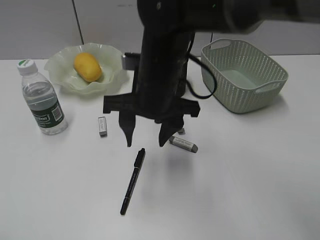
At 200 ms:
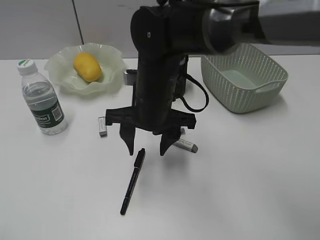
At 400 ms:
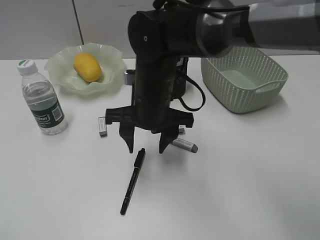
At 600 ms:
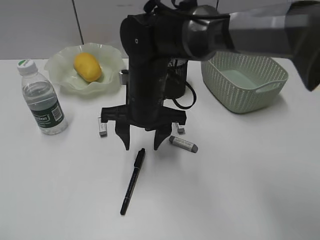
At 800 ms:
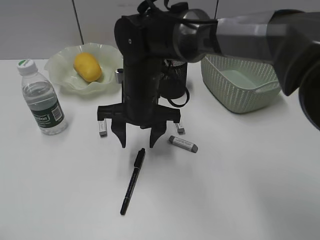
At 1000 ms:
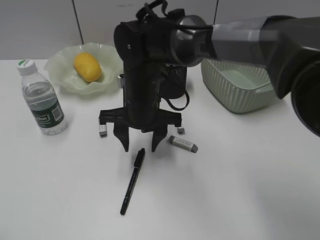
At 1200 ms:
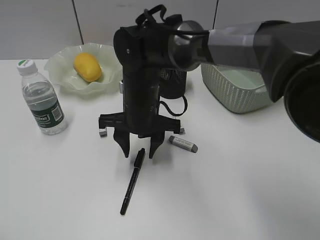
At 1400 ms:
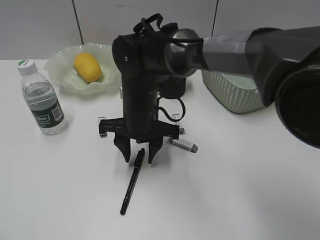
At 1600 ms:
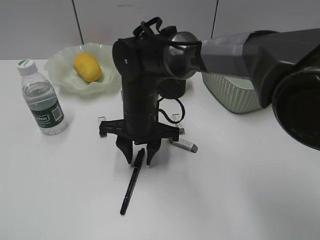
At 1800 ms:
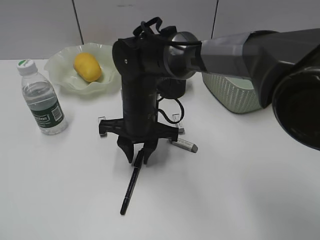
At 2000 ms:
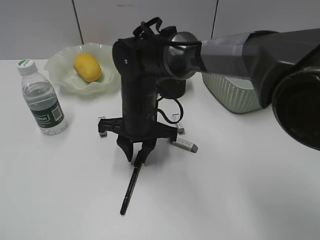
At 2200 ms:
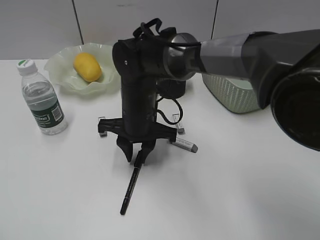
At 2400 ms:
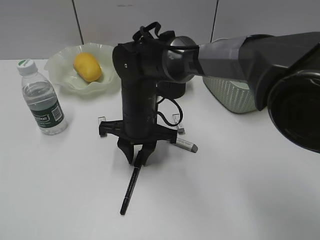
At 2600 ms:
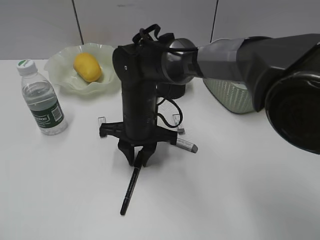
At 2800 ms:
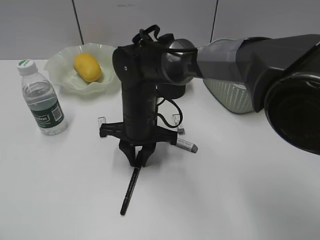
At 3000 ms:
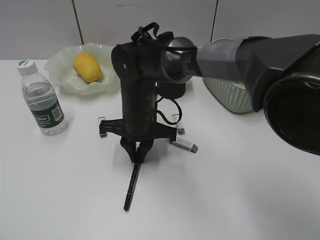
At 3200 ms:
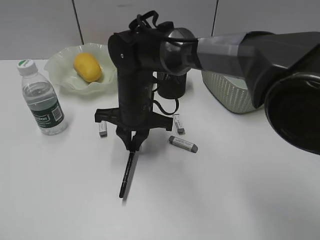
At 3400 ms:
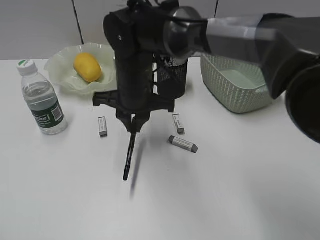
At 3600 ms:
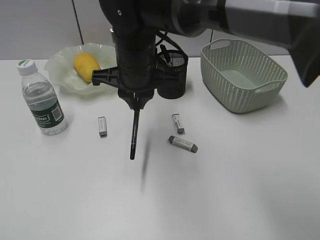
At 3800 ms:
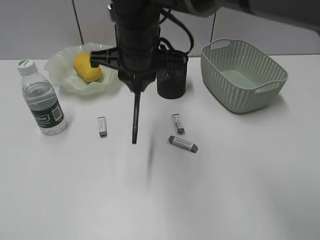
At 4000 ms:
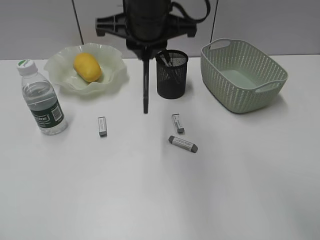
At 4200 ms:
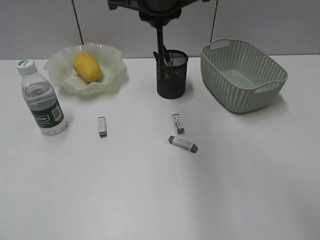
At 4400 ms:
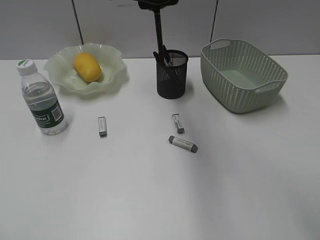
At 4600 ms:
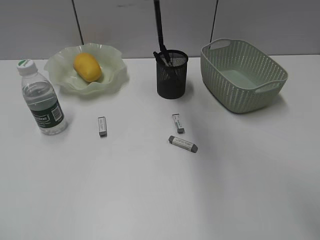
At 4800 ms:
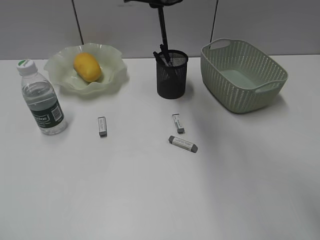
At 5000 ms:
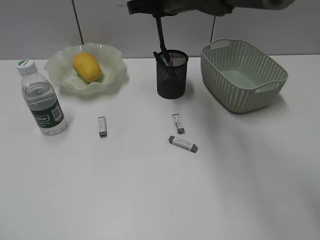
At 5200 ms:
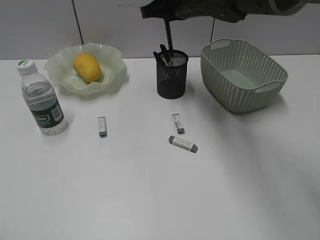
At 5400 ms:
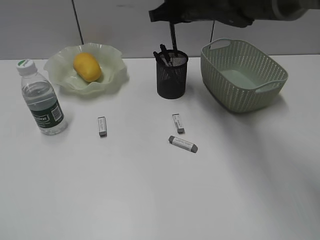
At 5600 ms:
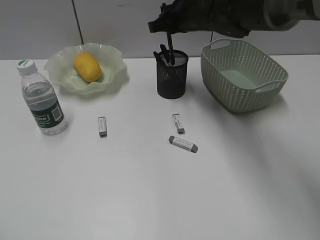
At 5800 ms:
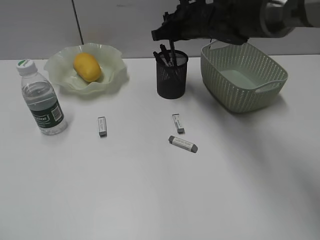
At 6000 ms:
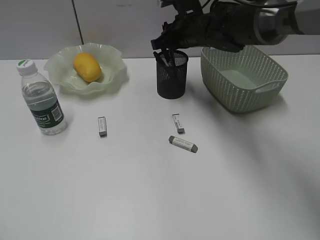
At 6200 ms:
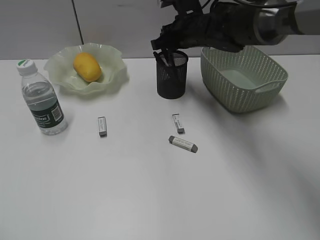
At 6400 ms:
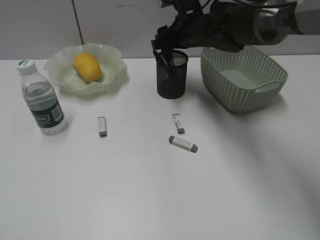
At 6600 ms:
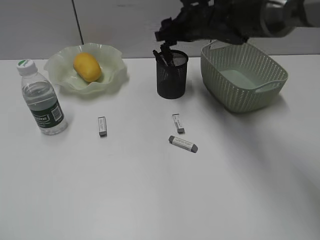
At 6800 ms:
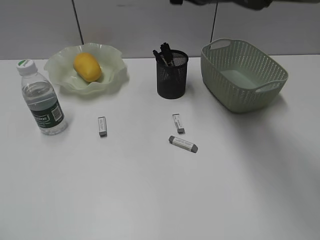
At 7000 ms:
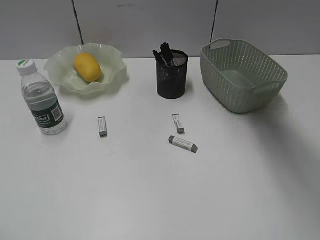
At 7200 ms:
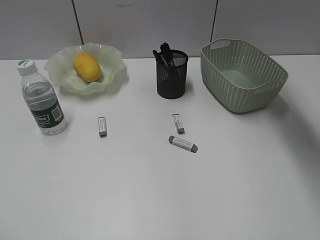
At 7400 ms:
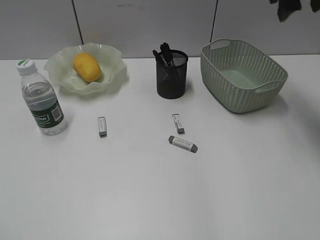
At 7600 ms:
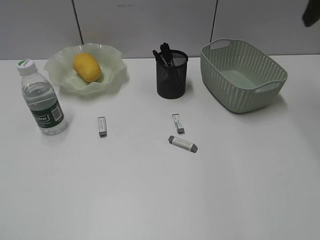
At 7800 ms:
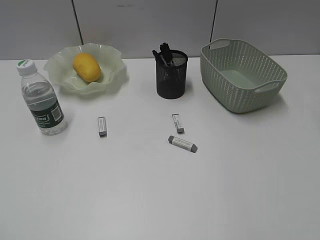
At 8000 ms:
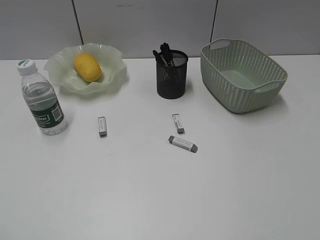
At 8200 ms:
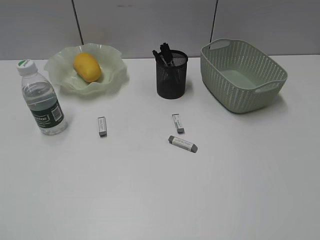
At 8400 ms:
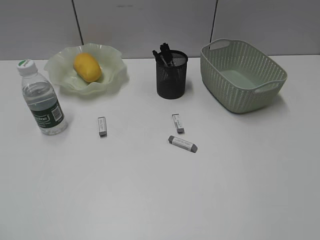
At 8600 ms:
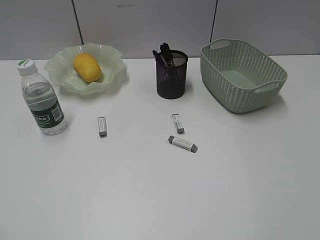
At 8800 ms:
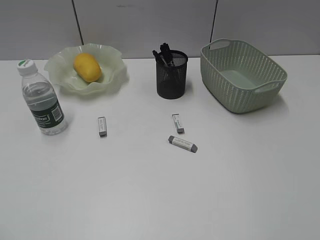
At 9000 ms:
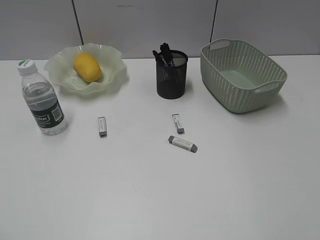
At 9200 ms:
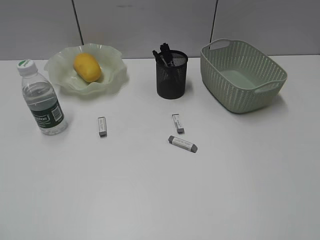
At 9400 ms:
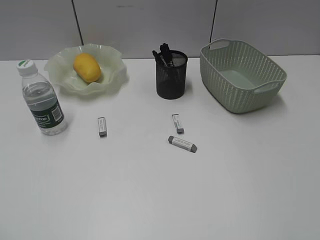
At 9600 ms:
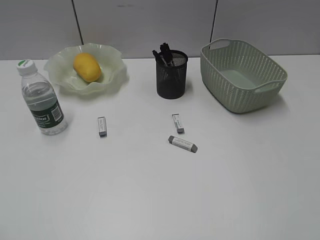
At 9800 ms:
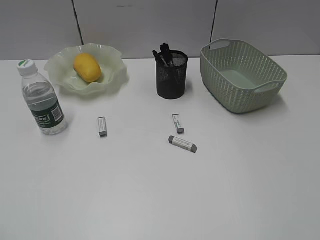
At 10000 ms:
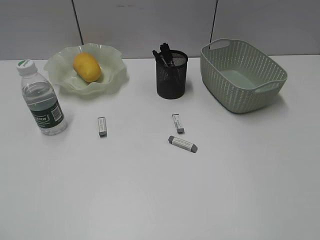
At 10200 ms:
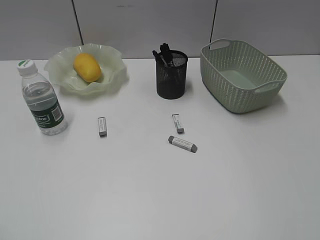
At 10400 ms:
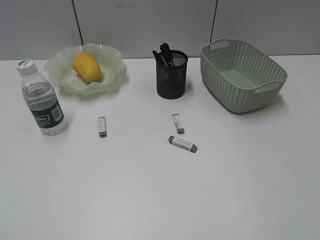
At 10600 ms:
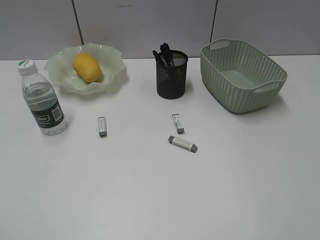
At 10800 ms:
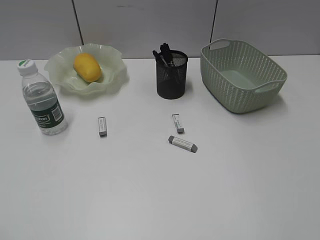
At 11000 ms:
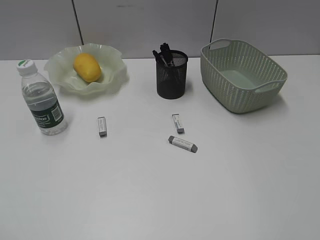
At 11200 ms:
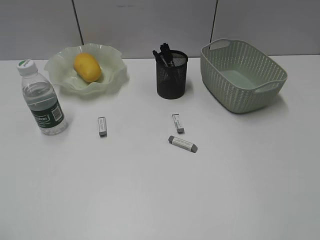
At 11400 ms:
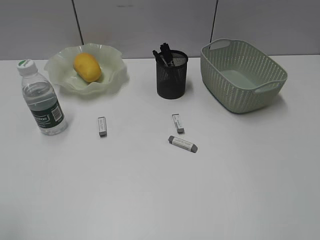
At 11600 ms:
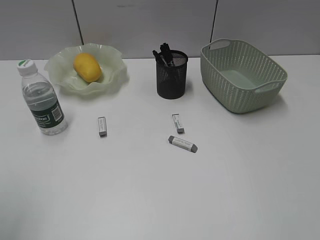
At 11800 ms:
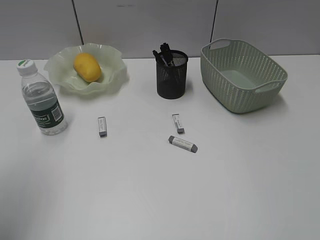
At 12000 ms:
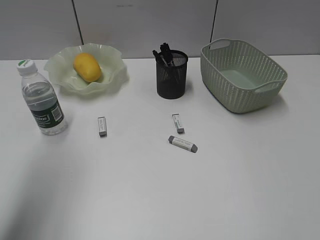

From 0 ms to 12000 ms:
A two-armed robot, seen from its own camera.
Step, from 0 ms to 2800 ms: Grasp the black pen with right gripper.
Step, from 3000 ms to 6600 ms: Place the black pen in pen holder with right gripper.
From 0 ms to 1600 ms: The right gripper travels downward by about 10 cm, and closes up.
From 1600 ms to 3000 ms: The right gripper closes.
From 3000 ms to 4400 ms: The right gripper goes roughly 20 cm upward.
From 4400 ms to 6000 ms: The right gripper heads downward, forward and to the right, covering roughly 20 cm.
From 6000 ms to 7600 ms: The right gripper goes roughly 30 cm to the right, upward and backward, and opens up.
From 7600 ms to 9000 ms: The right gripper heads backward, covering about 35 cm.
From 10400 ms to 12000 ms: The left gripper heads forward, covering about 20 cm, and opens its fingers.

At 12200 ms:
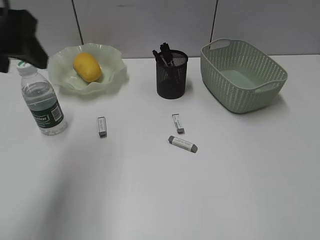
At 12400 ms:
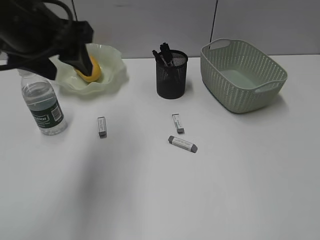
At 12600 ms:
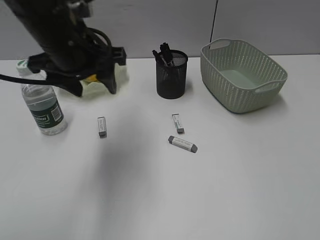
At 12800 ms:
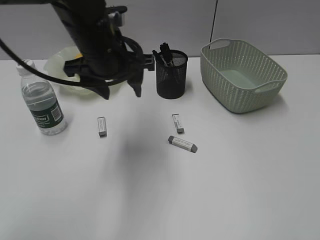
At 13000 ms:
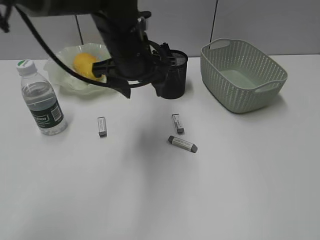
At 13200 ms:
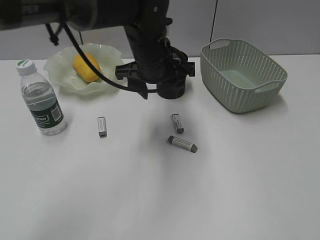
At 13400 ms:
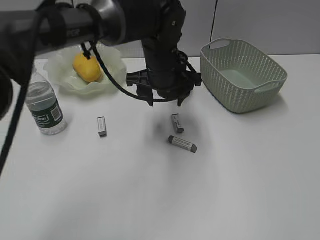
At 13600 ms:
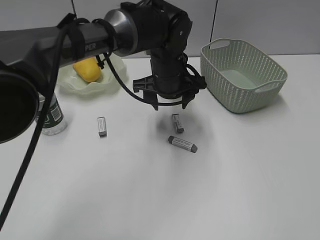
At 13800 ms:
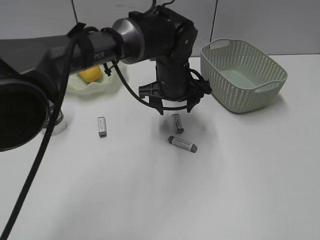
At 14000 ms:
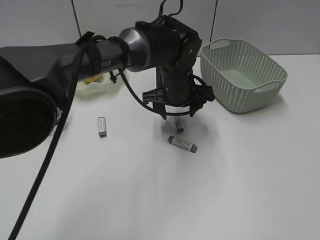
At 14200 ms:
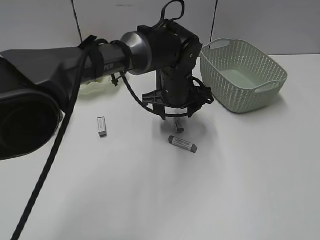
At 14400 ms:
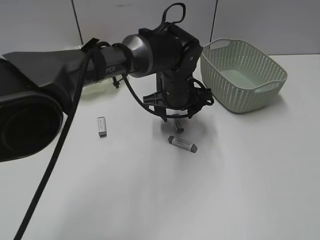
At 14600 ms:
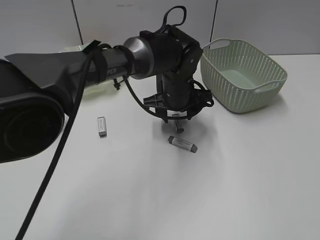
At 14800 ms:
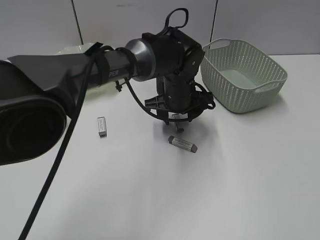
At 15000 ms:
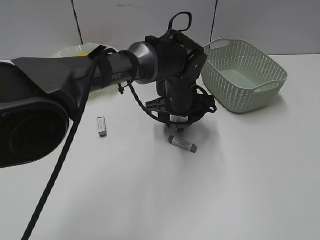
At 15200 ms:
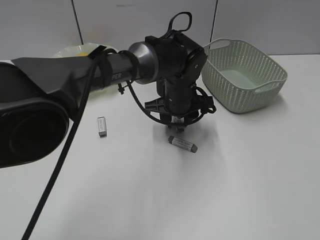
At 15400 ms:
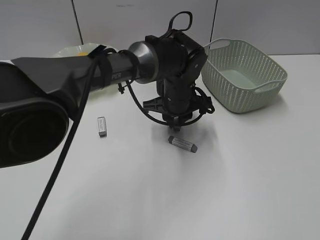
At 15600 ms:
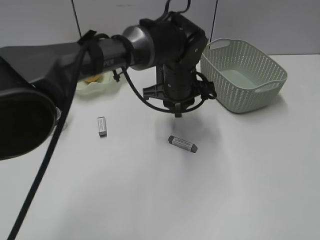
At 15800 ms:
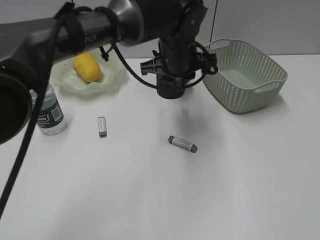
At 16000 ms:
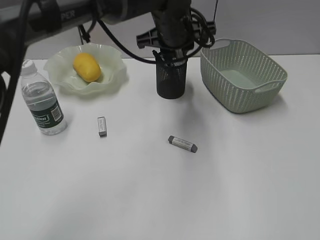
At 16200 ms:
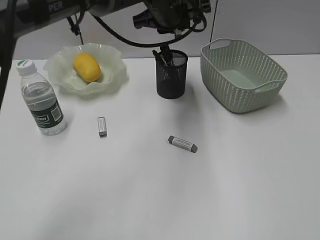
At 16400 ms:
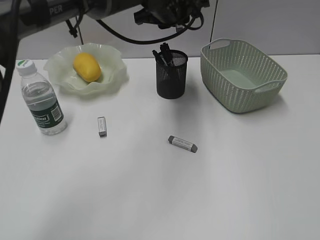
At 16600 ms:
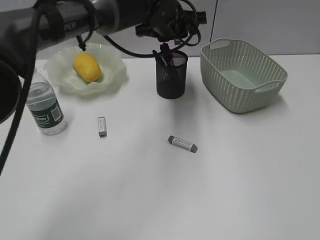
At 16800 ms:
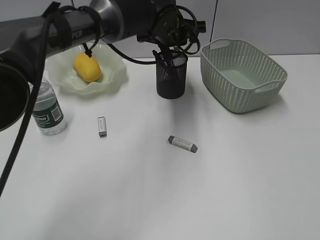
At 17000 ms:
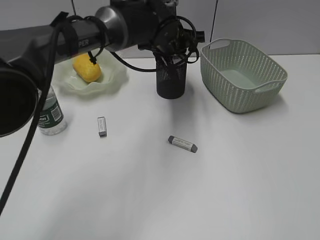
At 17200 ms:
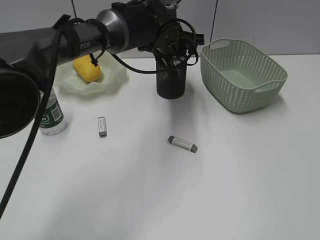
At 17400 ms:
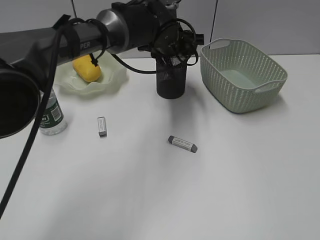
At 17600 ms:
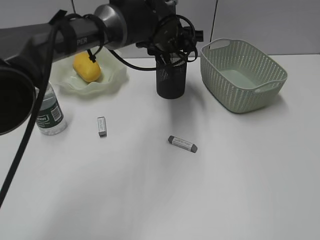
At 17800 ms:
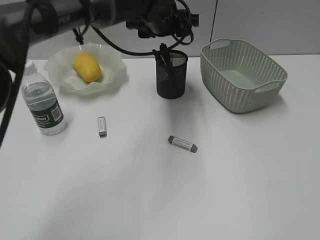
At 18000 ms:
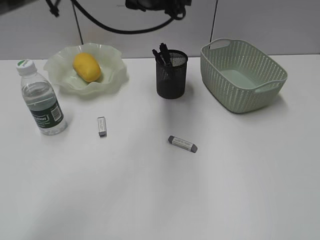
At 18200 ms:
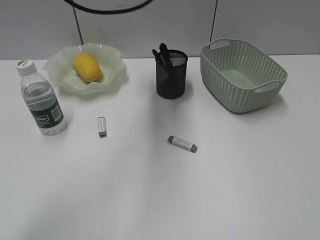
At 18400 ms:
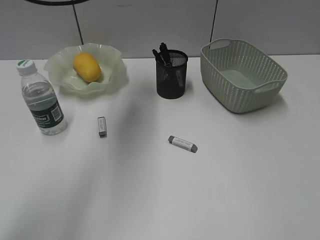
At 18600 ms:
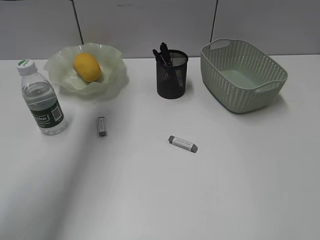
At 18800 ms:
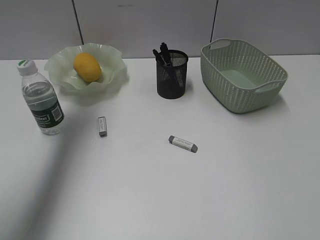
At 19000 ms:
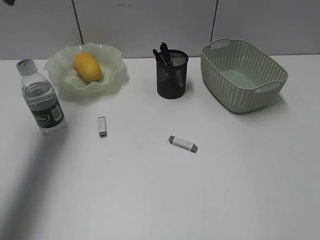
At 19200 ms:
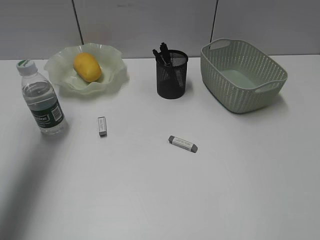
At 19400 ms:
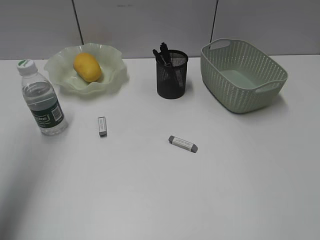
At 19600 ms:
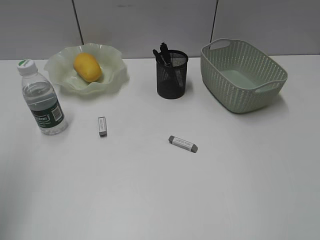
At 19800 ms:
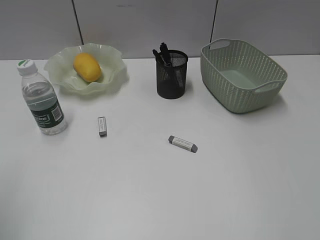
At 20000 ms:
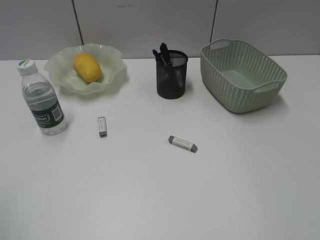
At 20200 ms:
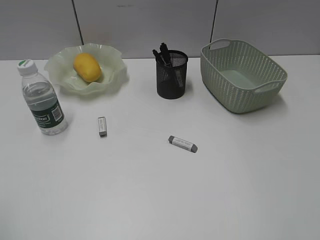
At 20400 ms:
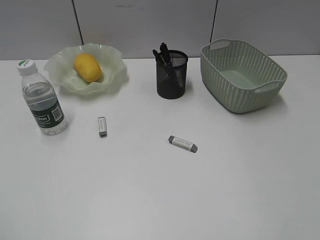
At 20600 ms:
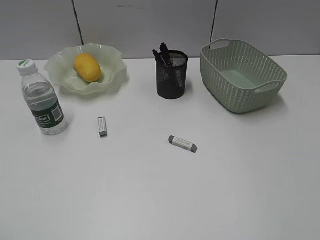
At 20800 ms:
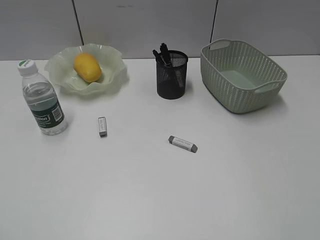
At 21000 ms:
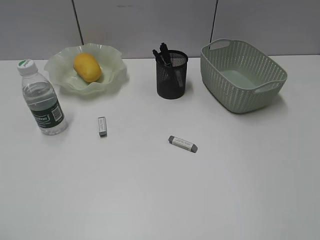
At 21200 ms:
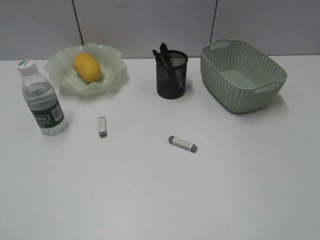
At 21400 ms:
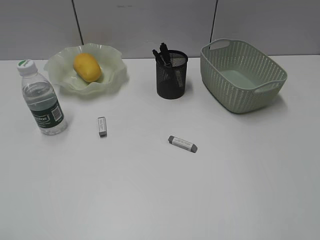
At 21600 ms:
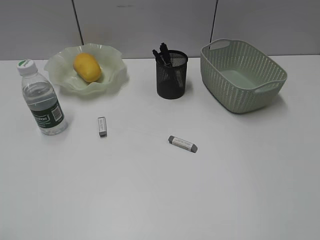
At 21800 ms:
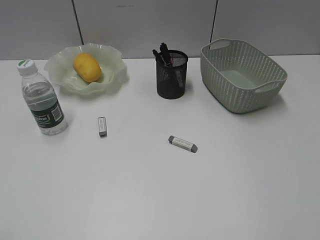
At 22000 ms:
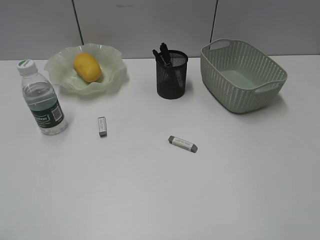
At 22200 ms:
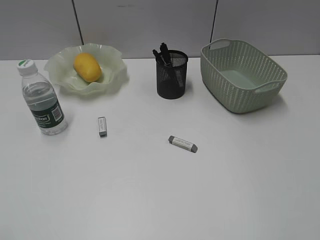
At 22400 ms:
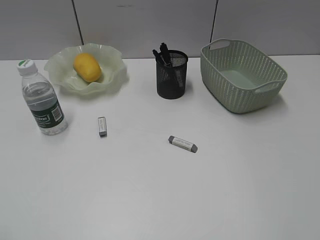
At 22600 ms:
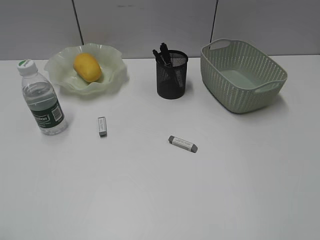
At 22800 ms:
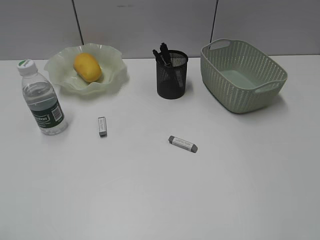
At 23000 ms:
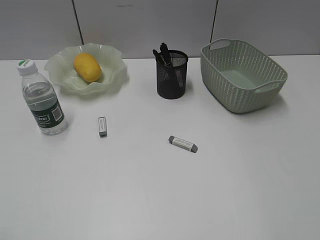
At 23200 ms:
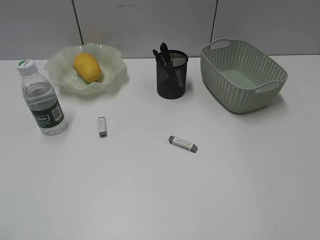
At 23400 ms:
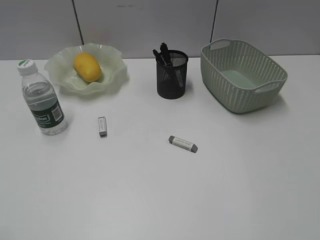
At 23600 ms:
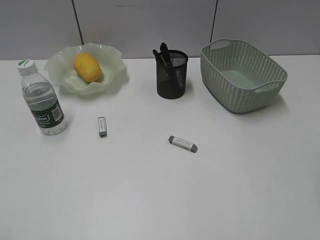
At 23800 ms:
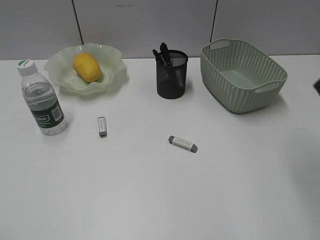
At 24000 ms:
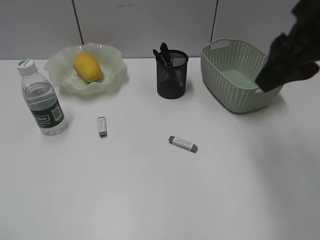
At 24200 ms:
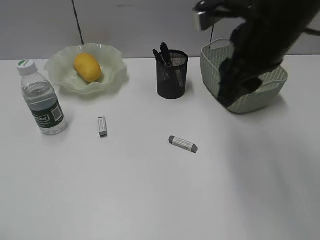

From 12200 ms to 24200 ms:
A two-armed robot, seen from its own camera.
Step, from 12200 ms to 15400 ms: Grasp the eraser with left gripper.
Step, from 15600 ms to 17400 ms: Place the eraser in pen holder with left gripper.
From 12200 ms to 13800 ms: The left gripper is displaced to the right, downward and forward by approximately 35 cm.
From 13800 ms to 15200 ms: The left gripper closes.
From 15200 ms to 16600 ms: The left gripper is displaced upward and forward by approximately 15 cm, and closes its fingers.
From 16600 ms to 18200 ms: The left gripper is displaced upward and to the left by approximately 10 cm, and opens its fingers.
From 18200 ms to 19800 ms: The left gripper shifts about 40 cm backward and to the left.
From 21200 ms to 22600 ms: Both grippers stay put.
From 22600 ms to 24200 ms: The right gripper travels forward and to the left by some 35 cm.
